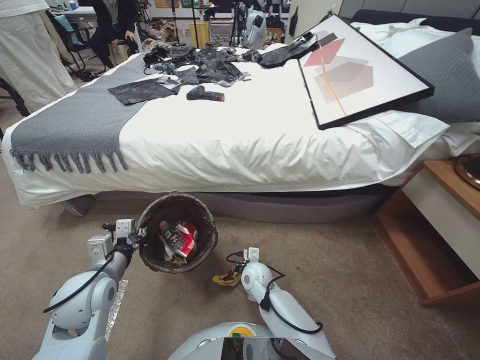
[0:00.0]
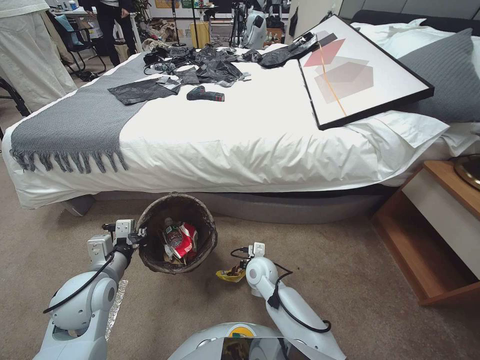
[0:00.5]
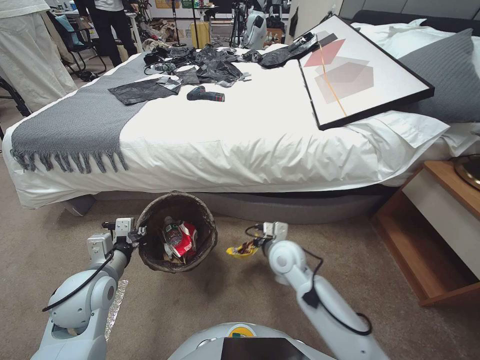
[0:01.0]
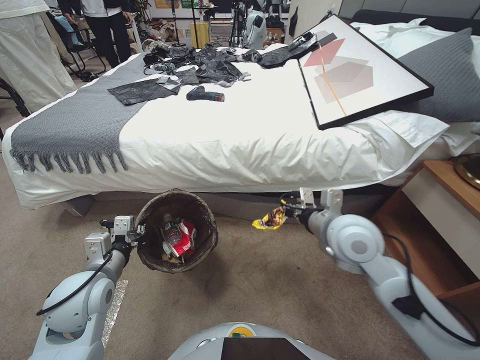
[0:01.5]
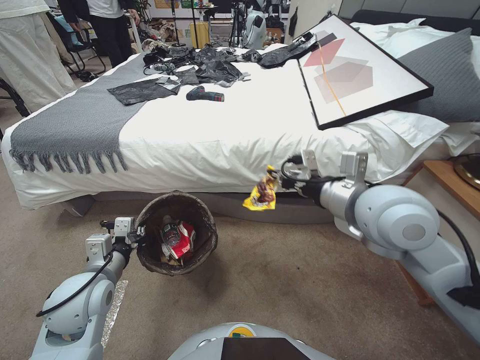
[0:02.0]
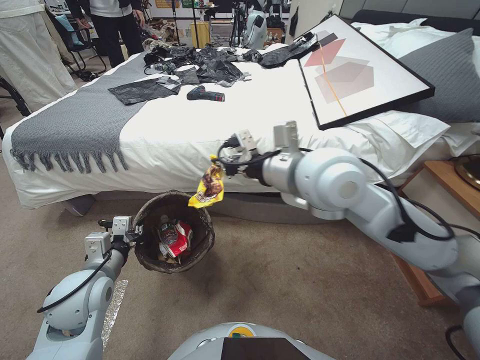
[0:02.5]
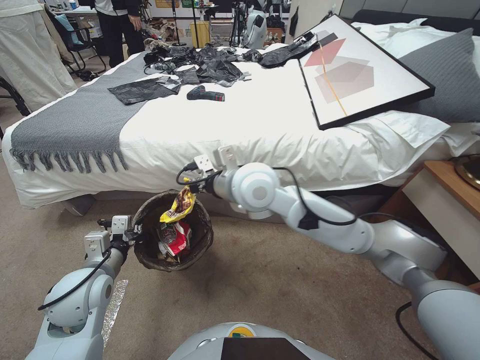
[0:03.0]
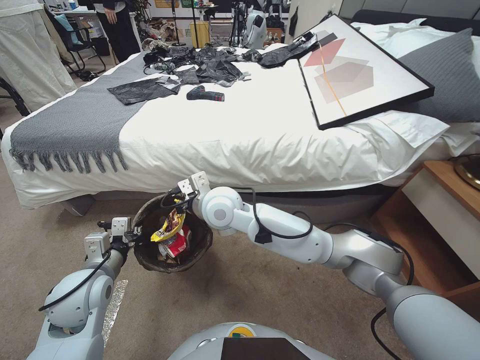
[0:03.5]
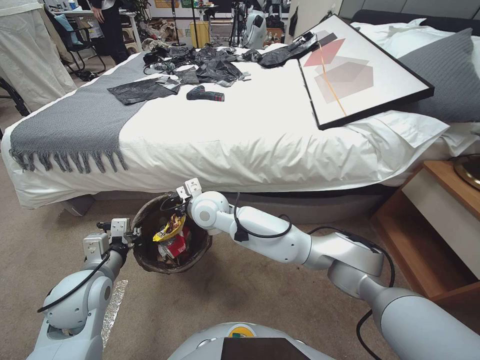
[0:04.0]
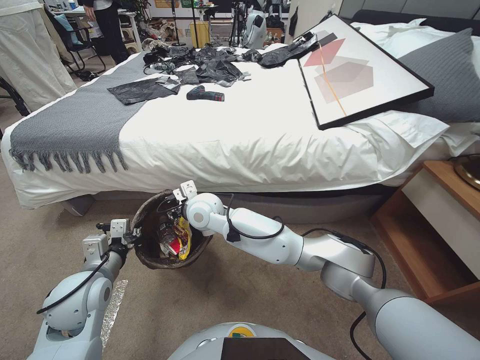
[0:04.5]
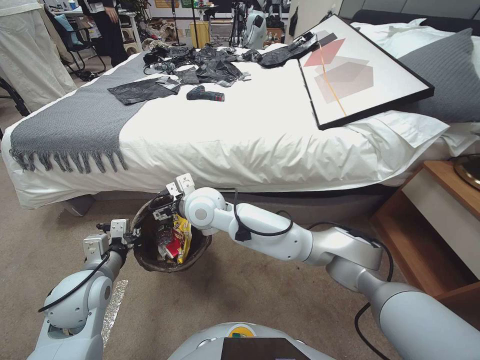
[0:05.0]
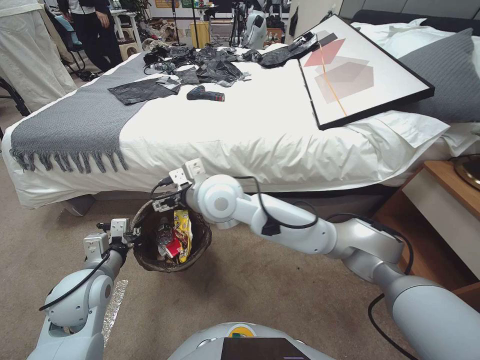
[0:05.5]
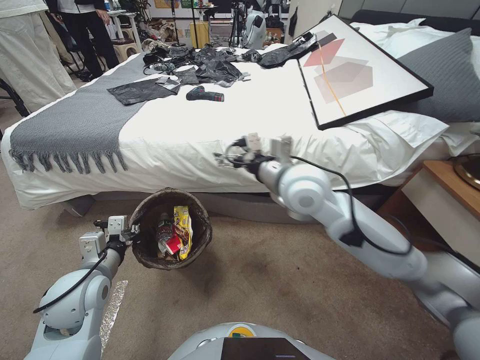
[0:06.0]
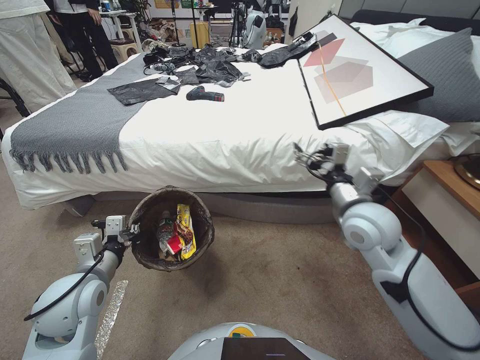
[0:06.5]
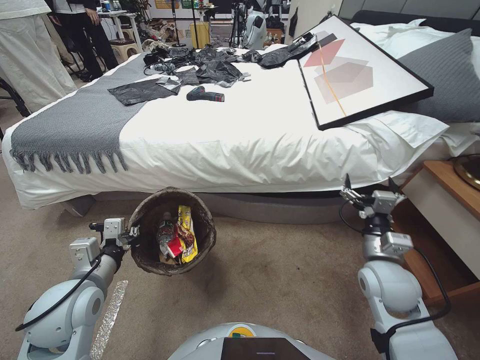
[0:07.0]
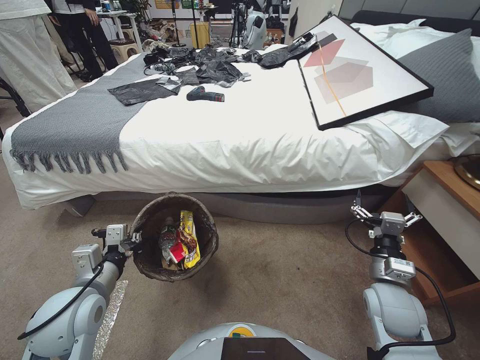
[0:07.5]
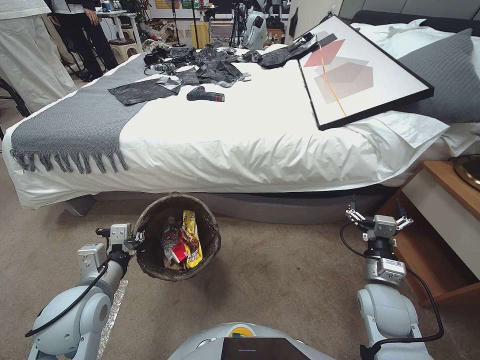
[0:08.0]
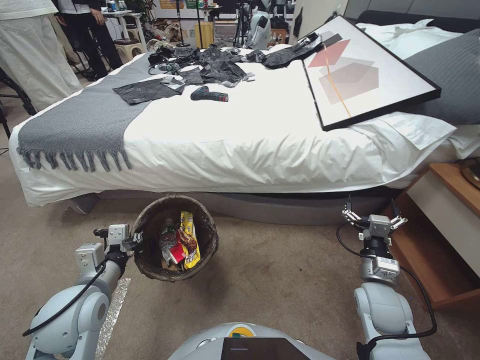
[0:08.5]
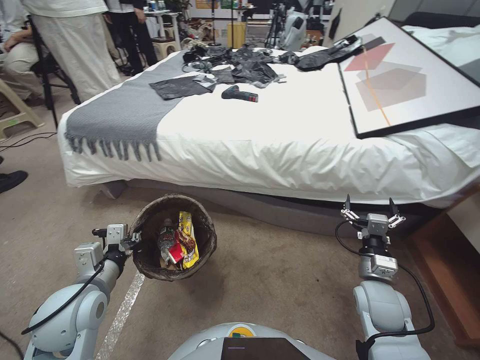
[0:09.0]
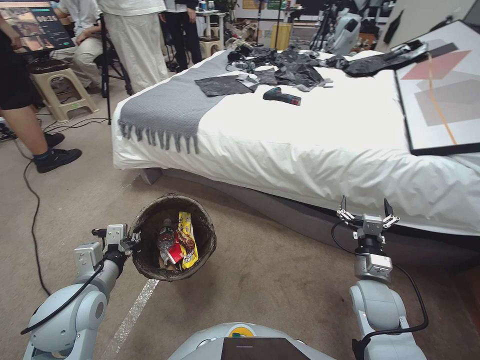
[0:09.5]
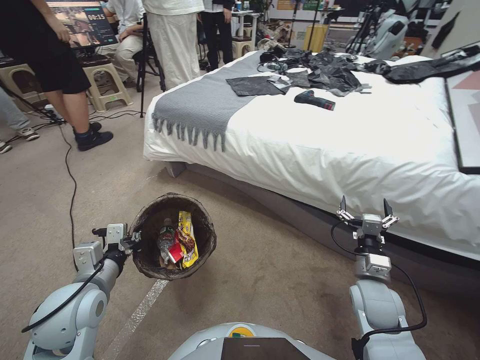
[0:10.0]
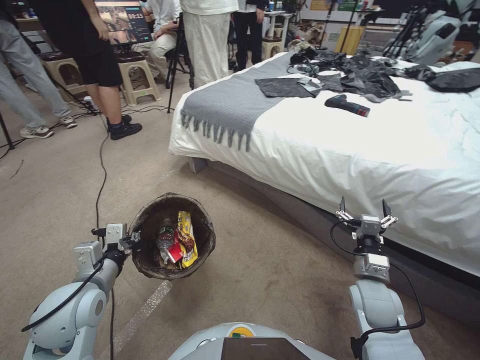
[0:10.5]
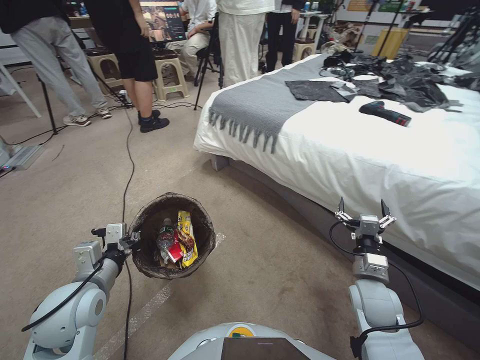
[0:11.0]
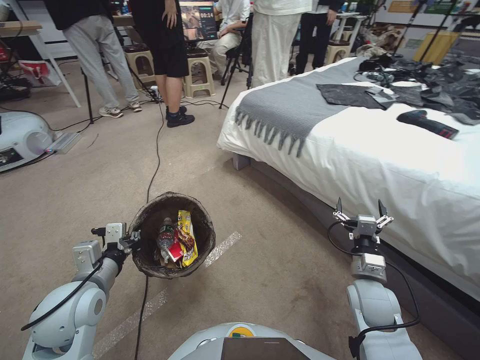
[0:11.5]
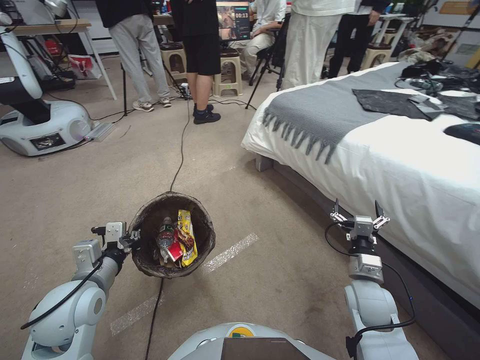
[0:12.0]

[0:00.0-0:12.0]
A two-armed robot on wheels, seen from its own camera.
Task of the whole recording: Pick up the trash bin, then pick up the garbage from the floor and place it into the trash bin.
0:00.0 to 0:02.0: The right gripper moves upward, roughly 40 cm.
0:02.0 to 0:04.0: The right gripper shifts approximately 35 cm to the left, downward and forward.
0:04.0 to 0:06.0: The right gripper goes some 20 cm to the right and upward, and opens up.
0:06.0 to 0:08.0: The right gripper moves downward, to the right and backward, approximately 35 cm.

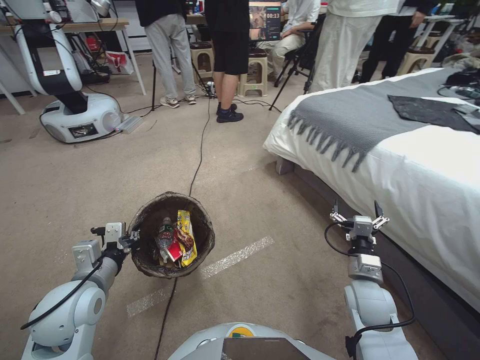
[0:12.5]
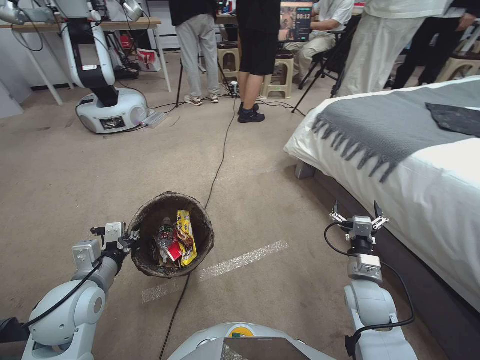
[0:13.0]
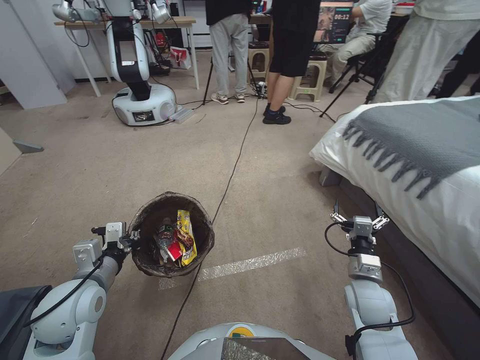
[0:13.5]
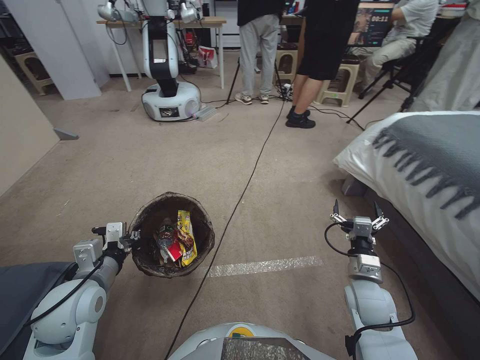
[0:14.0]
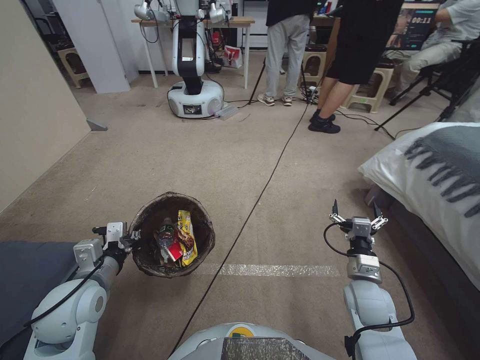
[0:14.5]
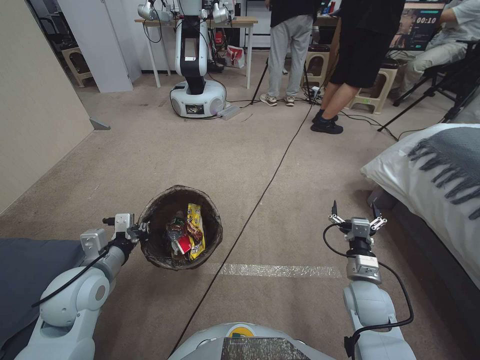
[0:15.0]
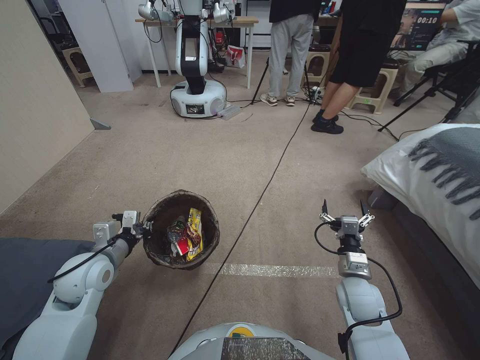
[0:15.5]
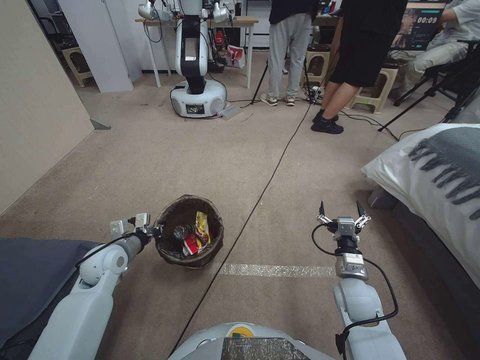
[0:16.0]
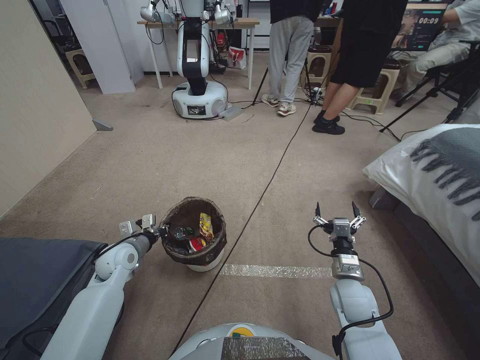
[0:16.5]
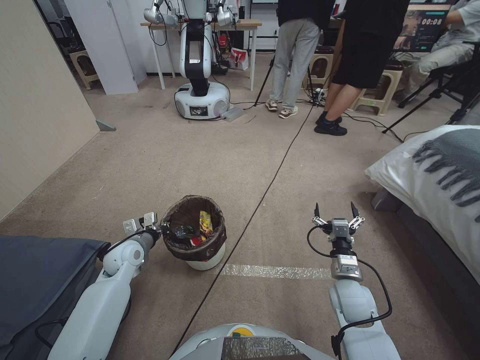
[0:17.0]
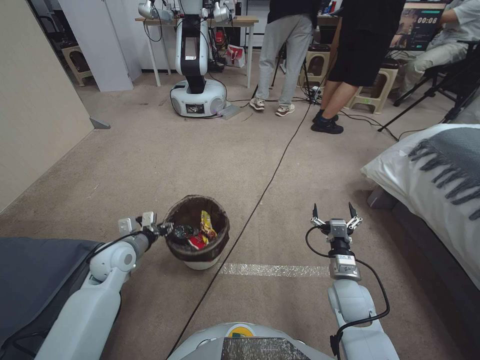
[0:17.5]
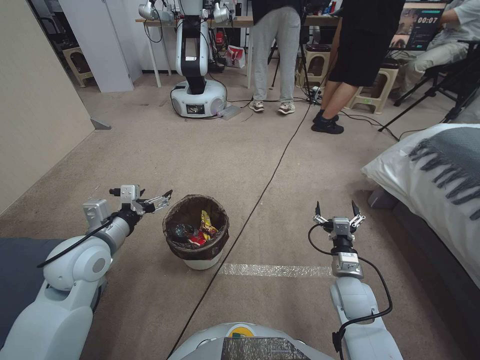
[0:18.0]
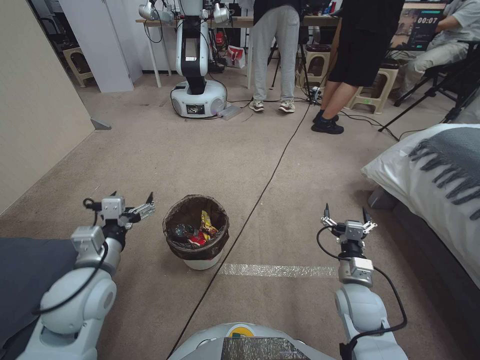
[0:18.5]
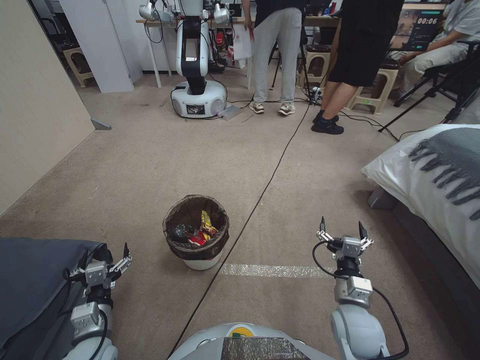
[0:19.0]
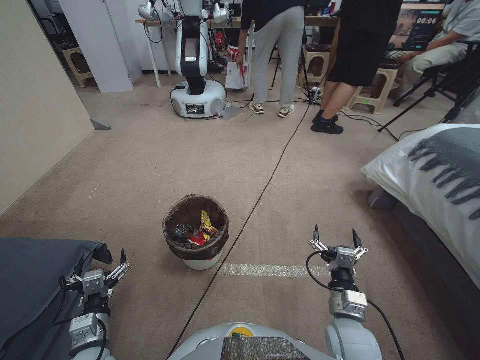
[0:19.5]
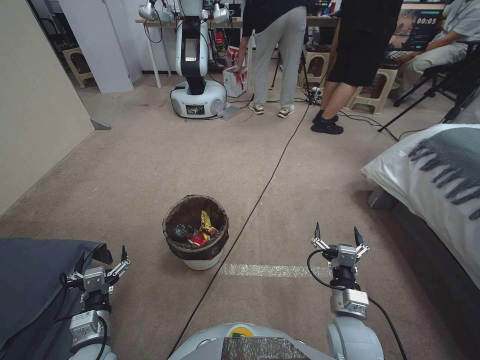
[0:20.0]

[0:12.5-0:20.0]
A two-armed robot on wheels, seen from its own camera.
Task of the whole recording: Pick up the trash bin, then pick up the garbage from the floor and place it into the trash bin.
0:14.5 to 0:16.5: The left gripper goes roughly 15 cm forward and downward.
0:16.5 to 0:18.0: The left gripper shifts roughly 15 cm upward, and opens up.
0:18.0 to 0:20.0: The left gripper goes about 25 cm downward and backward, while the right gripper moves backward, approximately 10 cm.

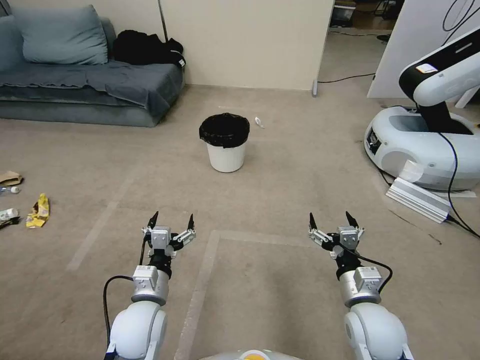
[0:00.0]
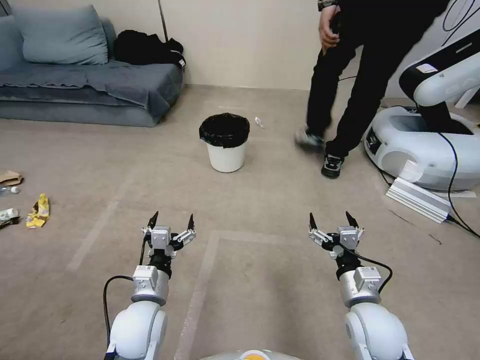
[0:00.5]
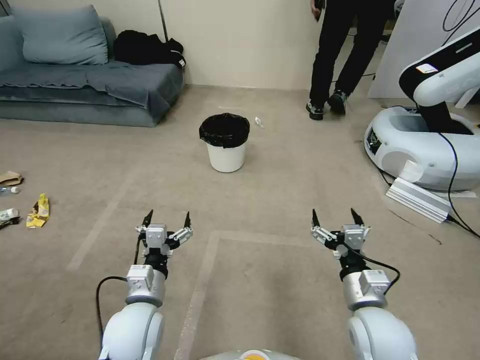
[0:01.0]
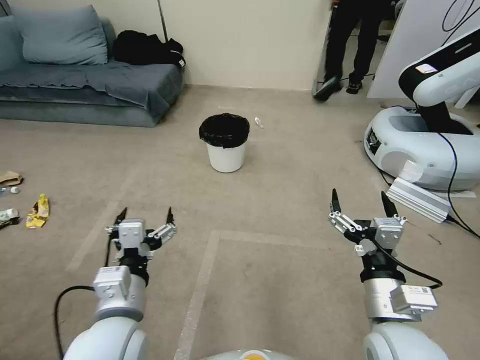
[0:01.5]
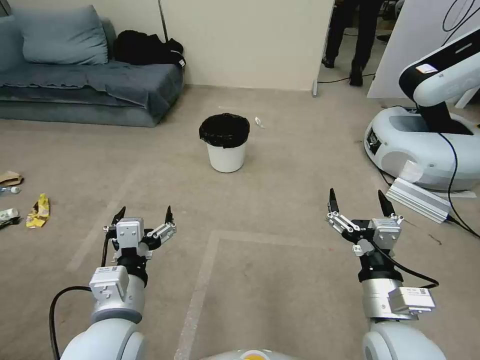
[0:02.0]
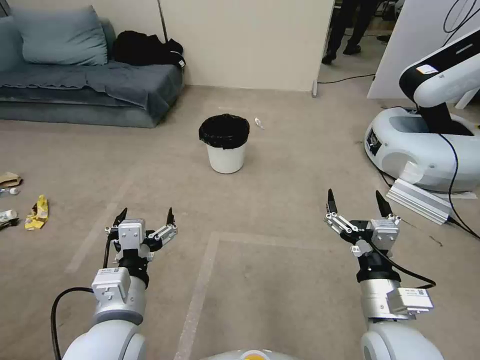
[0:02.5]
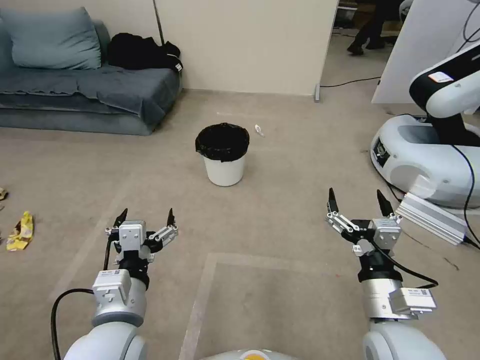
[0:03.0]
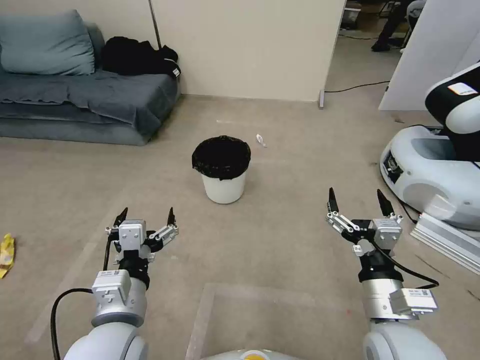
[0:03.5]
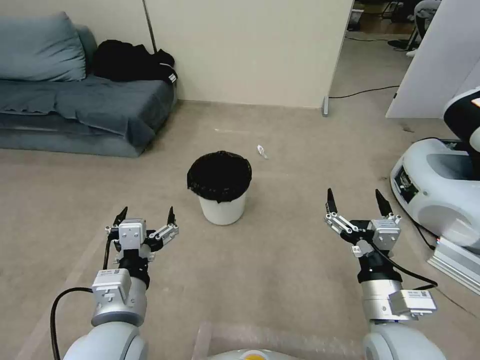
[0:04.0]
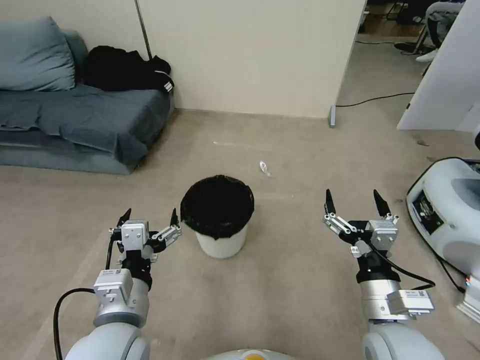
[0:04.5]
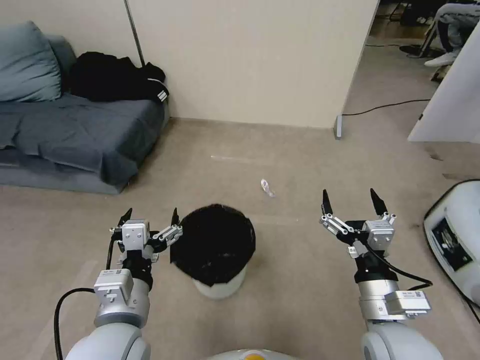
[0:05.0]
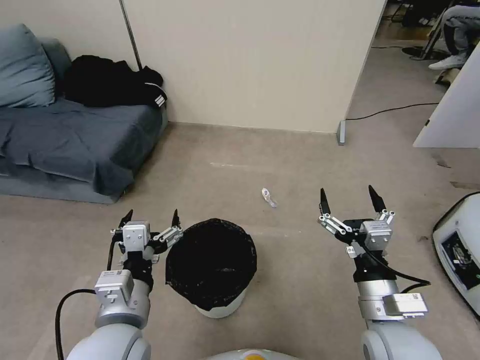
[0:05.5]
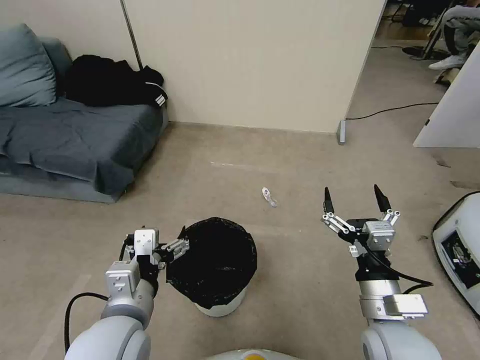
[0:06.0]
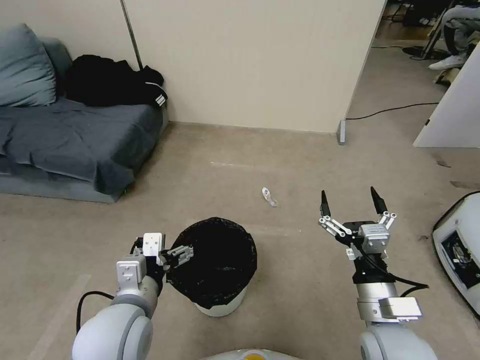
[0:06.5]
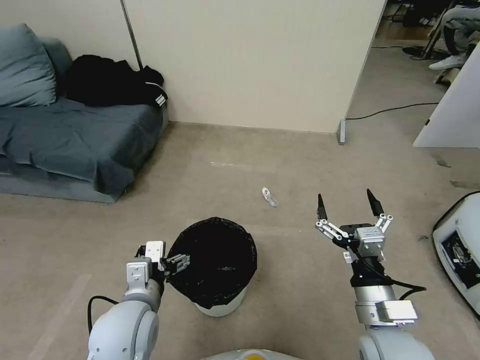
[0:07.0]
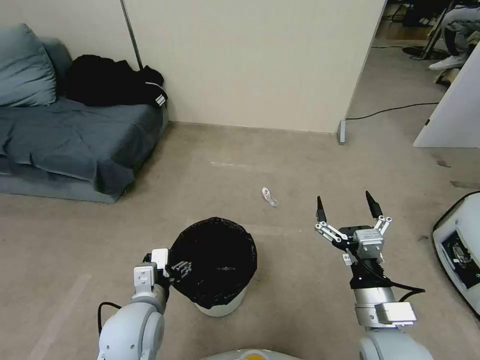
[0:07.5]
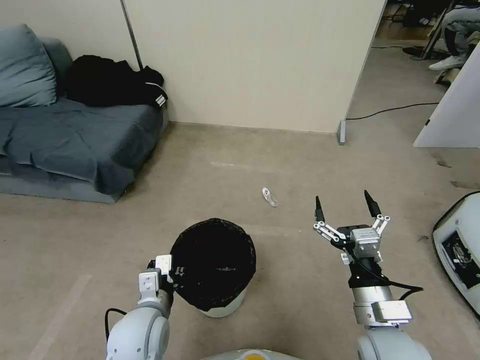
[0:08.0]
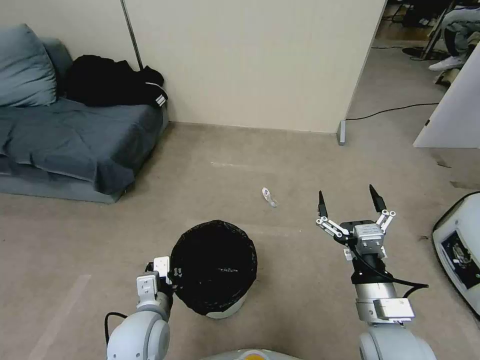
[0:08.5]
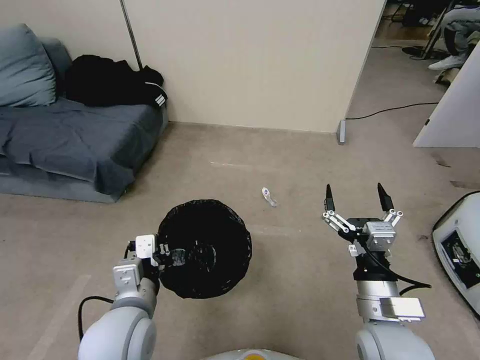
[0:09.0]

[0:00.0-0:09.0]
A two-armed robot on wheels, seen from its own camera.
Task of the whole recording: Pick up the trash bin, then pick up the garbage from the floor and place it into the trash bin.
0:04.5 to 0:07.0: The left gripper heads downward, covering roughly 5 cm.
0:07.0 to 0:09.0: The left gripper moves approximately 5 cm downward and comes back, and closes its fingers.
